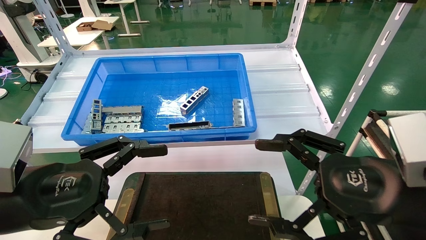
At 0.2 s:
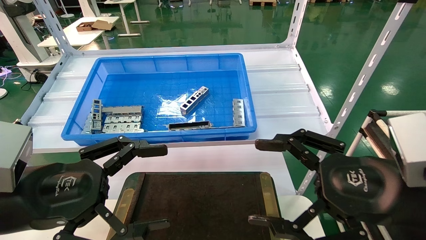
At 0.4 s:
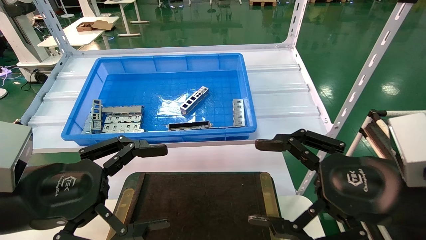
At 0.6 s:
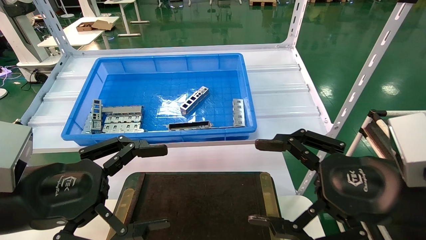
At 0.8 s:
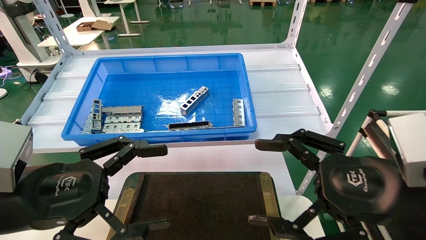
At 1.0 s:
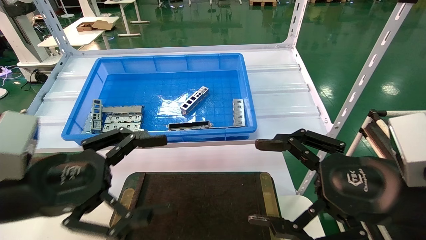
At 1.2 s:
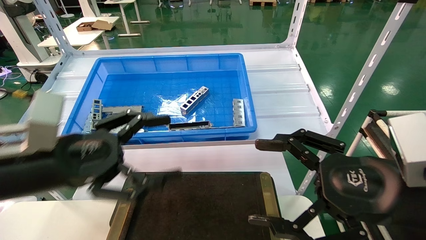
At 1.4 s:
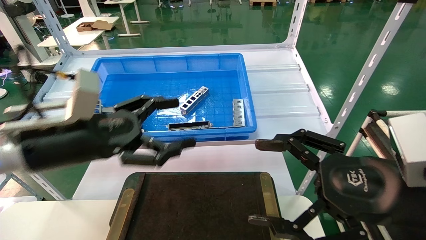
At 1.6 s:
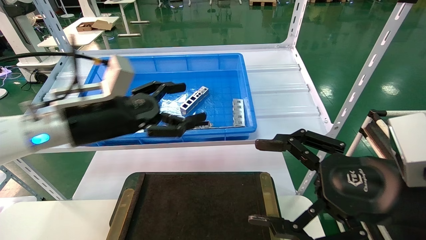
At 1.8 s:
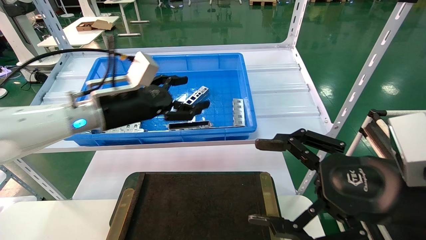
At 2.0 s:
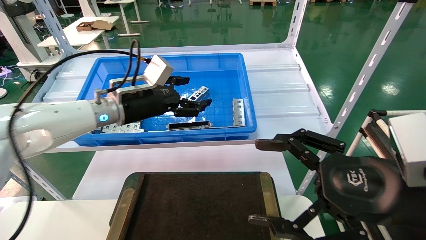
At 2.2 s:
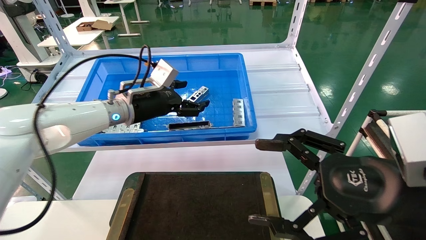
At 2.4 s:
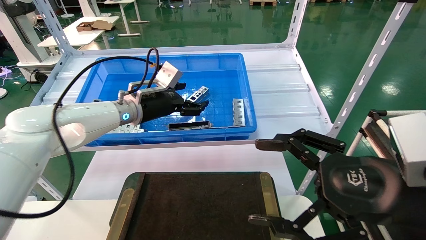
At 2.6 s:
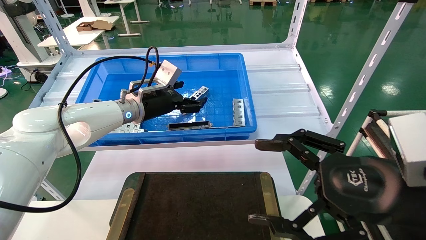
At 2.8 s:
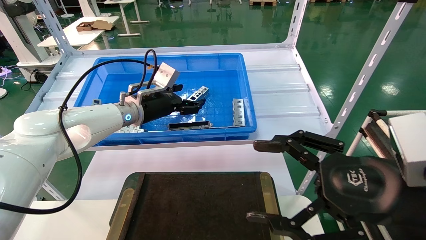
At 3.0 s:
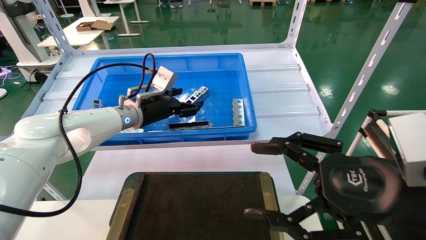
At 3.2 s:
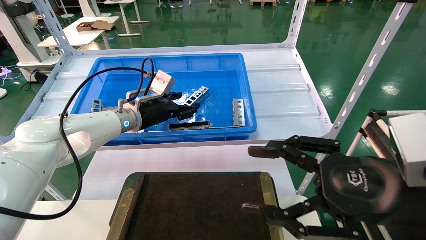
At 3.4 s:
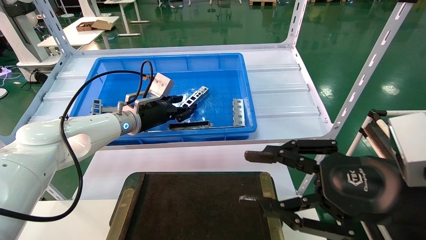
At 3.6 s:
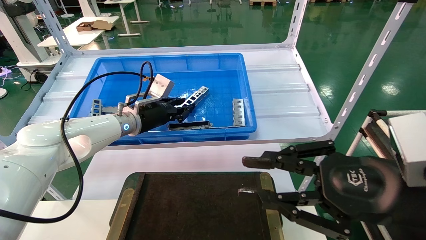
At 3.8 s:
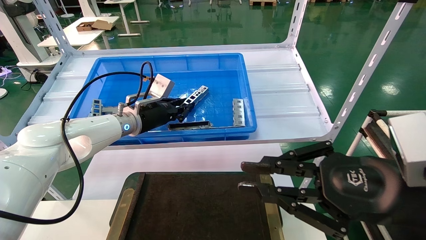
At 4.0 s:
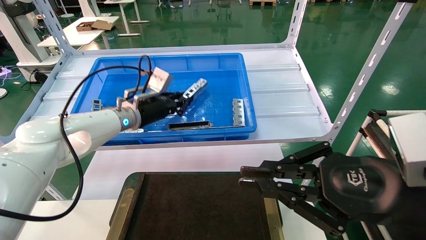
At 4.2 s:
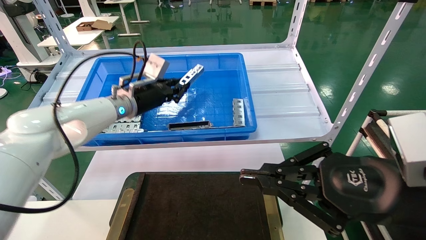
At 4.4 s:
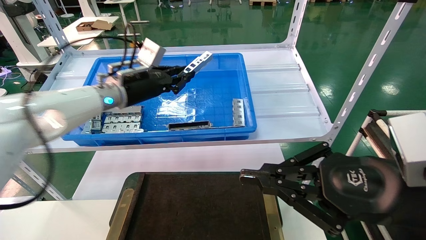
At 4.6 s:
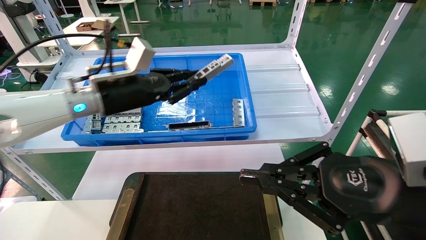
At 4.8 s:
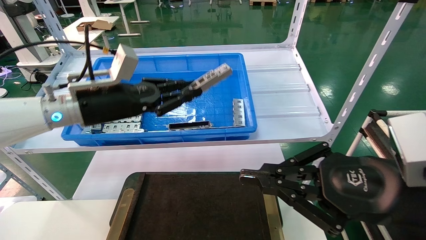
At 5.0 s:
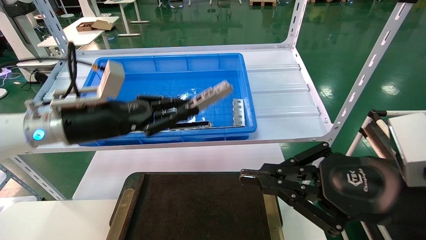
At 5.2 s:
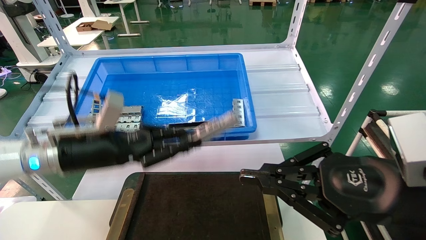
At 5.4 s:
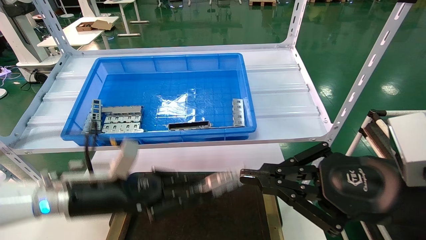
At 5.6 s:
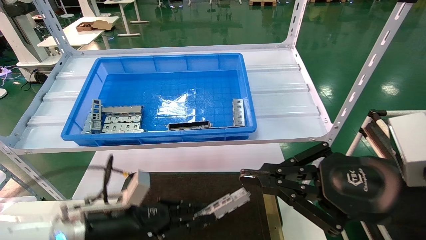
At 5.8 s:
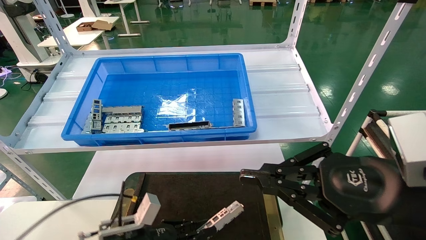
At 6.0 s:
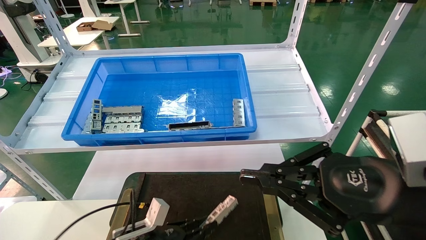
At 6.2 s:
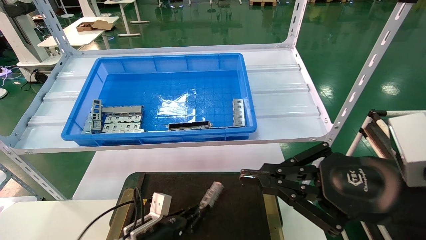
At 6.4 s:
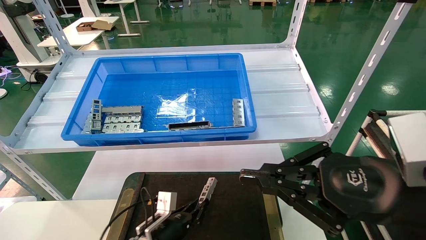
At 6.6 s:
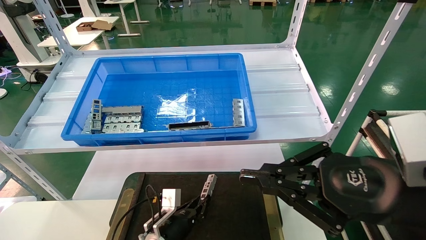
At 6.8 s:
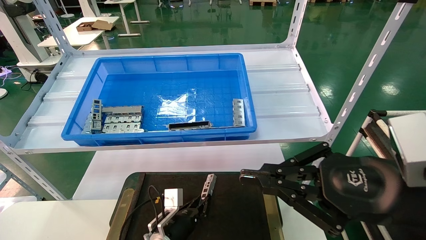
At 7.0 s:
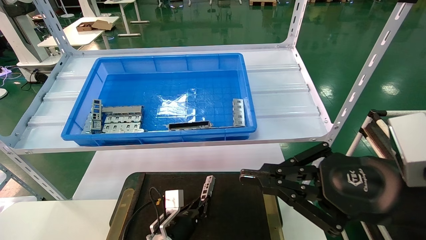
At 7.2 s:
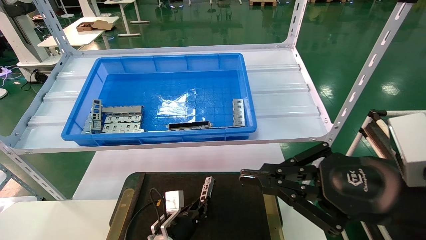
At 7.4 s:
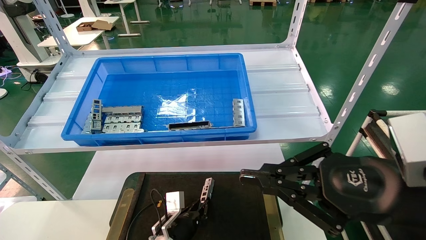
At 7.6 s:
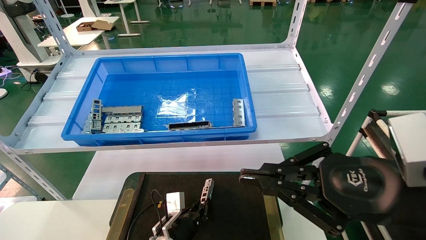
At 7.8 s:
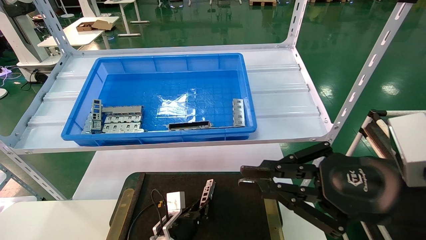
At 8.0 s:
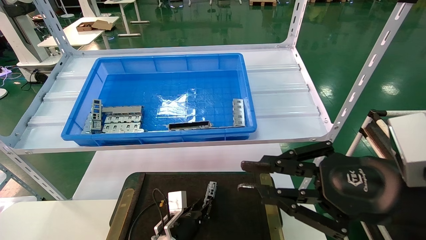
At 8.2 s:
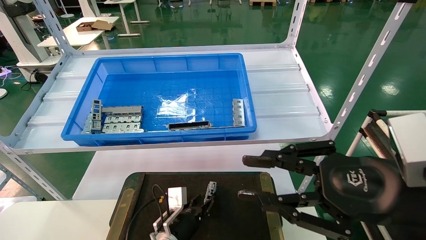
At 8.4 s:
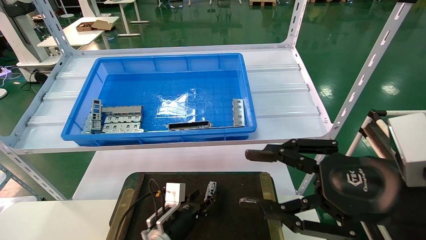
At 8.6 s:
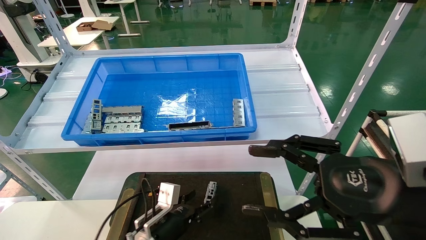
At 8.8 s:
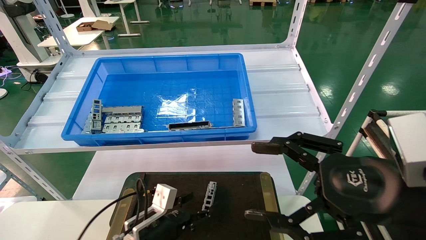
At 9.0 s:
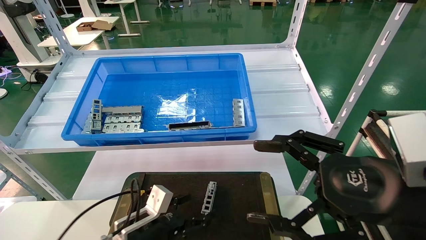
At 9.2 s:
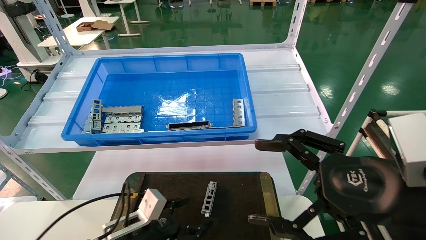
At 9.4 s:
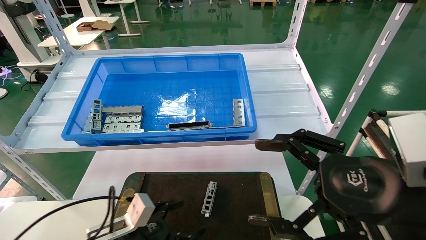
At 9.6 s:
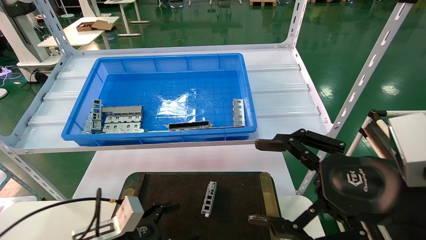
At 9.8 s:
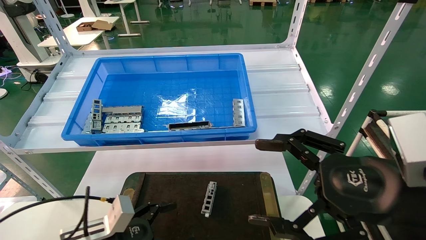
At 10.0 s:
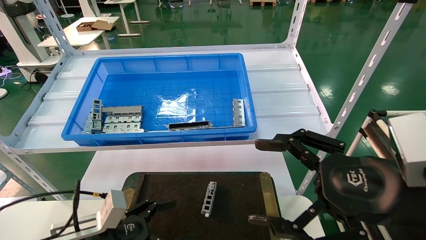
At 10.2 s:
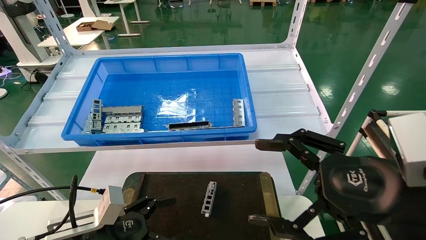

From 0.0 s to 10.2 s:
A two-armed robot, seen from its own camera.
Task of the whole recording: Grasp the part with one hand and place it on the black container.
Step, from 1.2 s to 3.6 s: Pick up the front USB bracket from the feeding area.
Step, from 3.8 s to 7.8 s: Place the front USB bracket into the box.
From 0.0 s to 1.4 s: The left gripper travels forward by approximately 10 cm.
From 1.4 s to 3.0 s: The left gripper shifts about 20 cm forward.
From 3.0 s to 4.4 s: The right gripper closes up, while the left gripper shifts by approximately 5 cm, and closes.
From 4.4 s to 5.8 s: The left gripper moves downward and backward, approximately 30 cm.
From 5.8 s to 7.2 s: The left gripper is displaced to the right, downward and forward by some 15 cm.
From 7.2 s to 8.8 s: The right gripper opens up; the left gripper is displaced upward and backward by some 10 cm, and opens its fingers.
From 8.8 s to 10.2 s: The left gripper moves to the left, backward and upward, approximately 15 cm.
